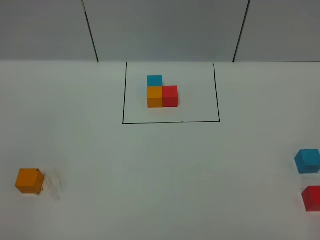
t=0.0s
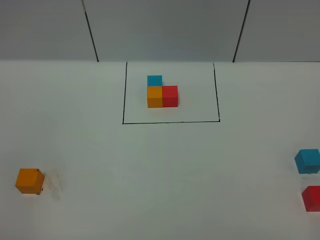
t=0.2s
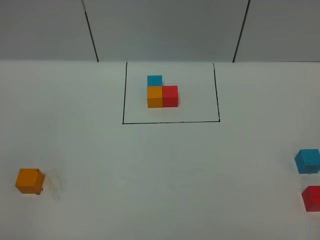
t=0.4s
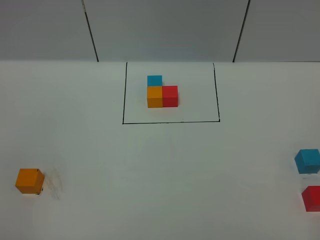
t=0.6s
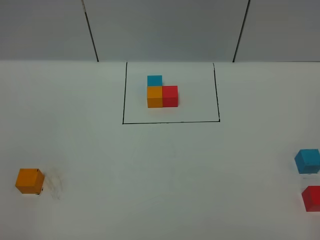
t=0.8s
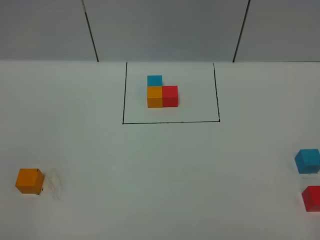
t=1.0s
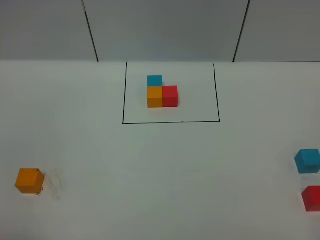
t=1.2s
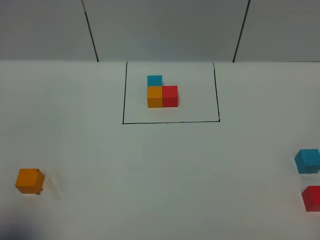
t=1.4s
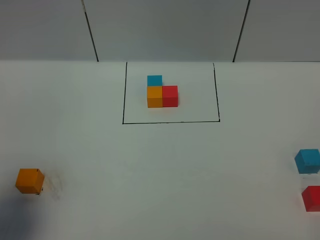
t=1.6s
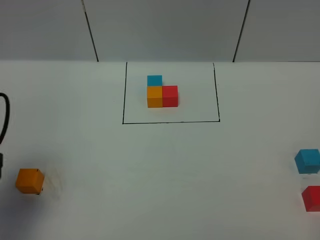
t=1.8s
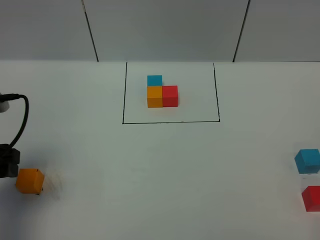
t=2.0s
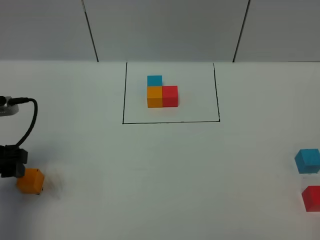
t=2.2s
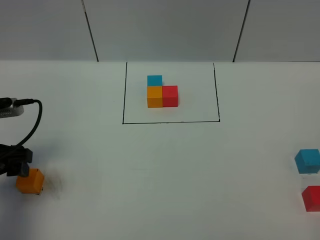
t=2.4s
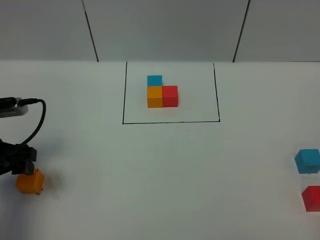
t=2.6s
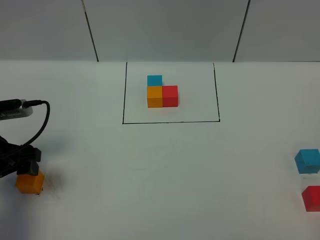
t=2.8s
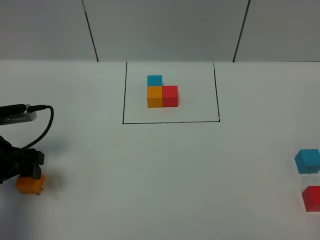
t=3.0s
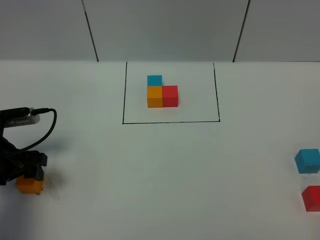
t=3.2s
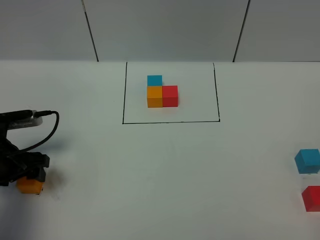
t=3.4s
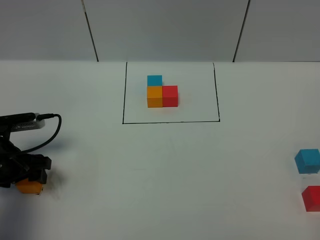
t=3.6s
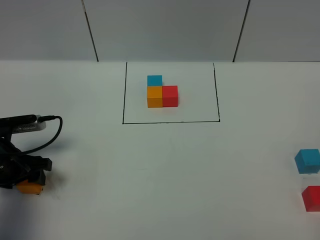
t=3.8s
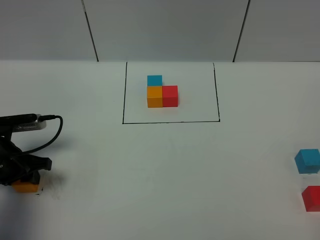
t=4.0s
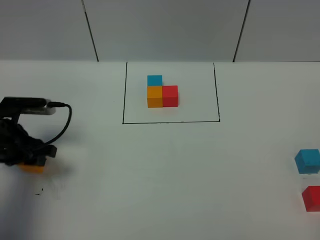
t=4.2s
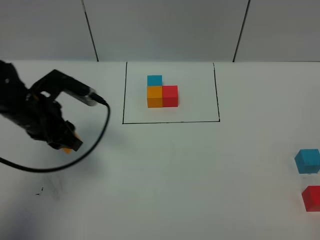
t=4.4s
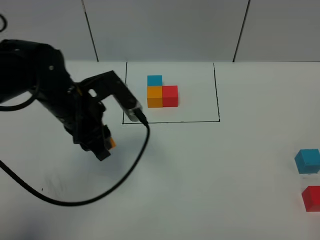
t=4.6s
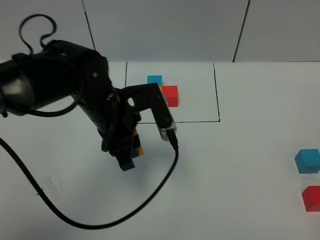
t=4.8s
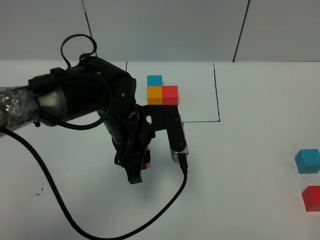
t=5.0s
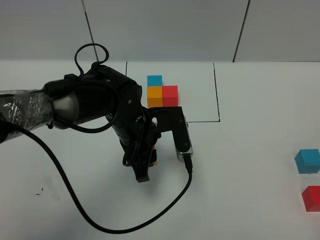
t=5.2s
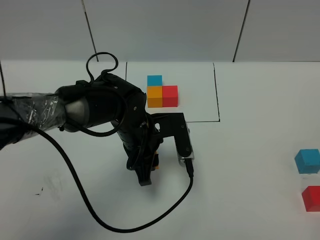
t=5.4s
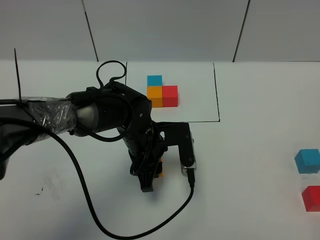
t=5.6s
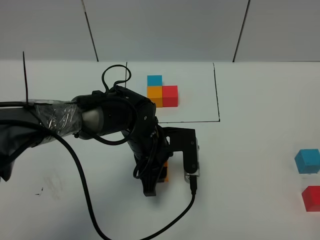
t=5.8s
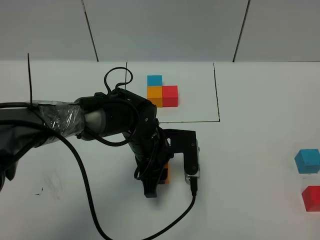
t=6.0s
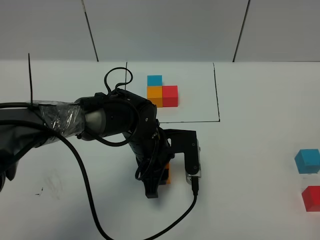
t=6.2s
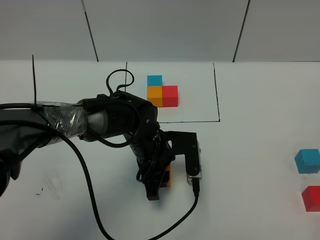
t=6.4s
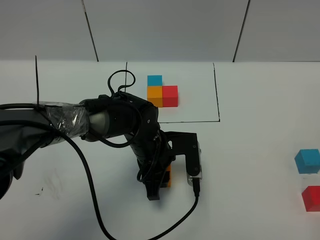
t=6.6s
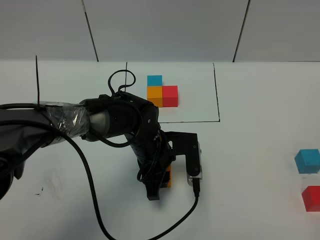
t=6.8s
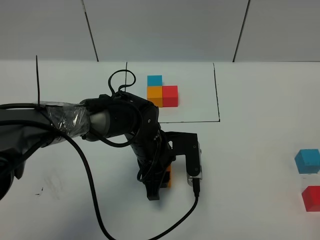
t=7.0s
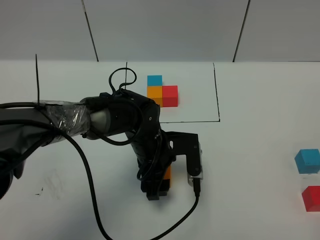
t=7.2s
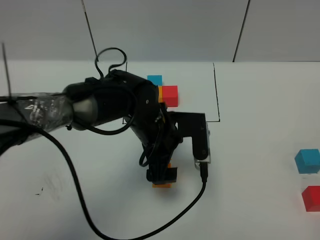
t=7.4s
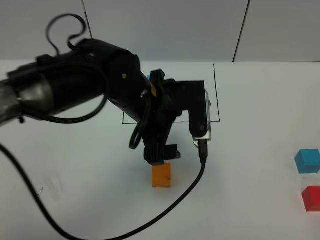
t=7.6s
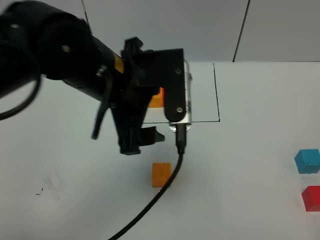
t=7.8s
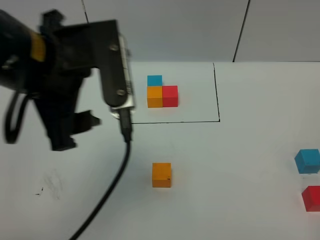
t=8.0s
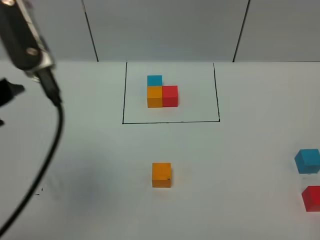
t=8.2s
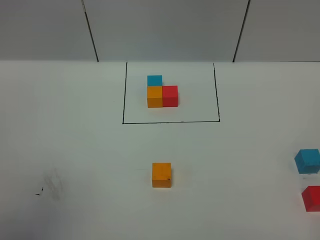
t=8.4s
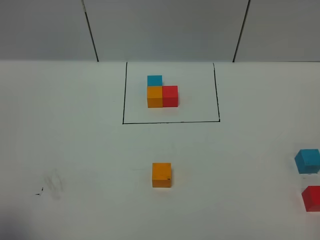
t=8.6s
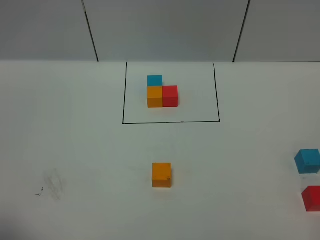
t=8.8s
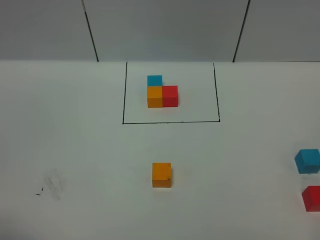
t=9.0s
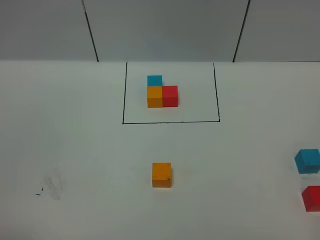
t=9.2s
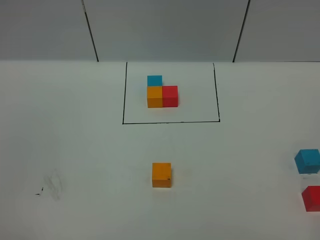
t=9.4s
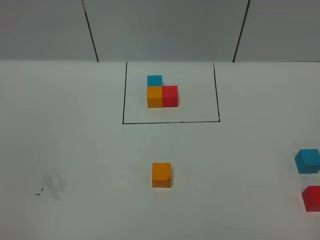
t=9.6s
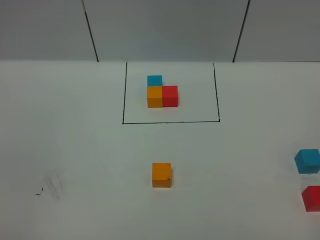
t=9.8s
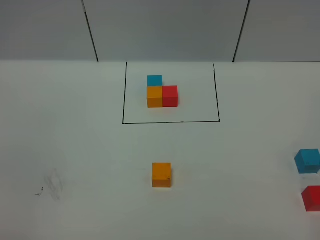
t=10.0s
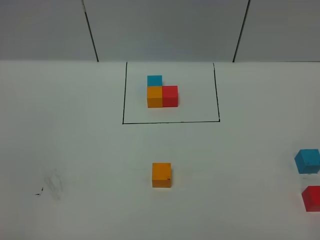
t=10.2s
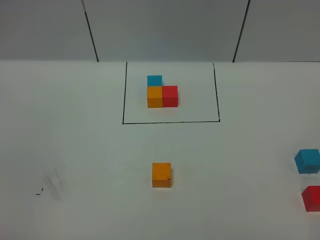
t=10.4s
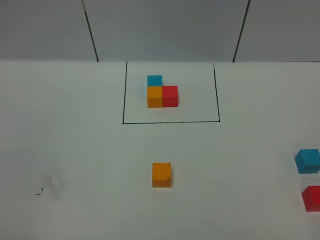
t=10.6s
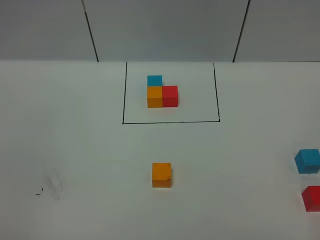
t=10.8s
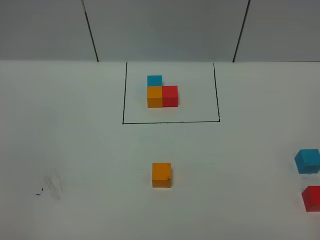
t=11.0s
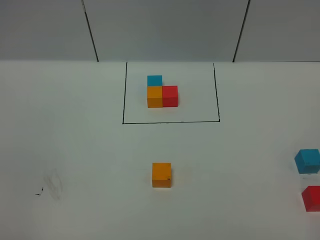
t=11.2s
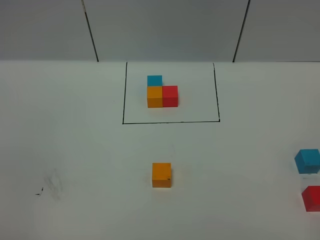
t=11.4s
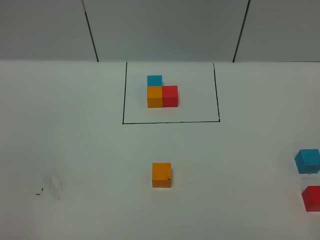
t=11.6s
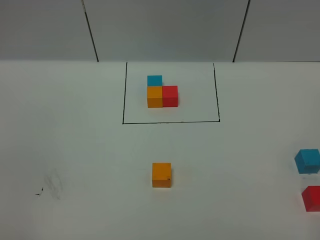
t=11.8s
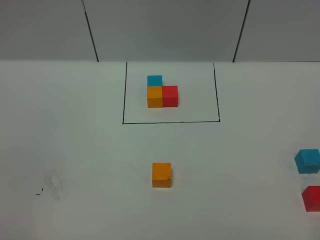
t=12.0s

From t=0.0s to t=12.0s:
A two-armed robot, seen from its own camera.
Task of the whole recording: According to the building block template in front, assemble the scattered blocks together.
Step, from t=1.8s to t=7.0s: Put the orange cube in the center of the table.
From t=0.0s to t=1.6s: The left gripper heads forward, covering roughly 15 cm.
From t=1.6s to t=3.0s: The left gripper travels downward and forward by roughly 20 cm.
From t=3.0s to t=4.4s: The left gripper moves to the right and forward, approximately 10 cm, and closes.
From t=4.4s to t=6.0s: The left gripper shifts roughly 20 cm to the right and downward.
From t=6.0s to t=7.6s: The left gripper shifts some 15 cm upward, and opens up.
From t=7.6s to t=9.0s: The left gripper moves to the left and backward, roughly 40 cm.
From t=10.4s to t=12.0s: Neither gripper changes place.

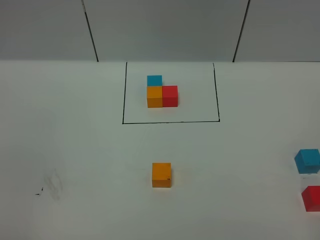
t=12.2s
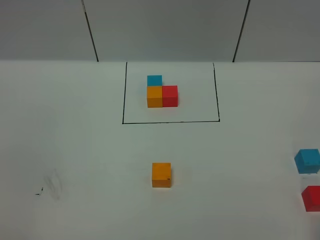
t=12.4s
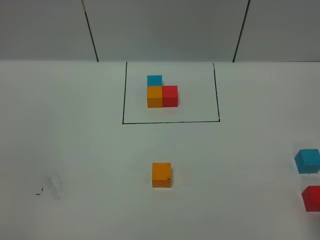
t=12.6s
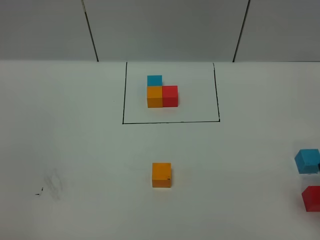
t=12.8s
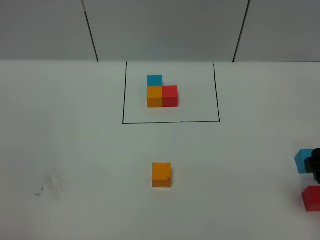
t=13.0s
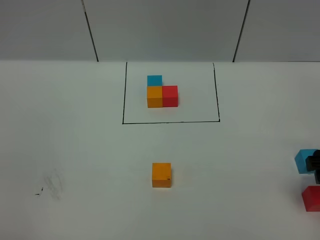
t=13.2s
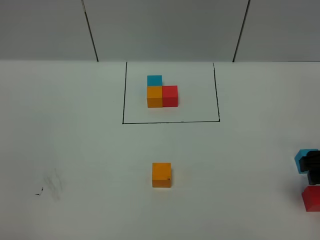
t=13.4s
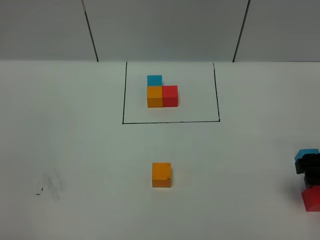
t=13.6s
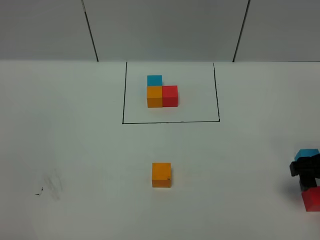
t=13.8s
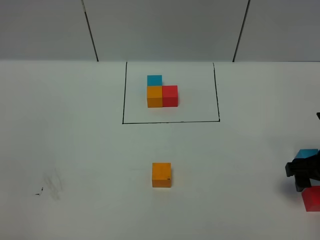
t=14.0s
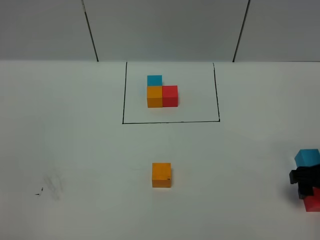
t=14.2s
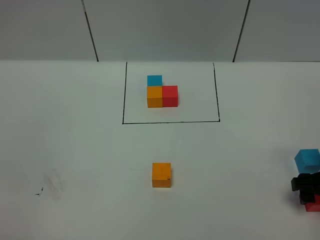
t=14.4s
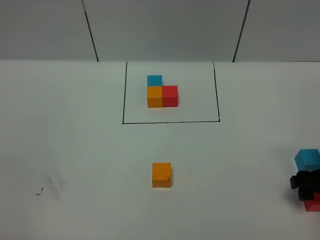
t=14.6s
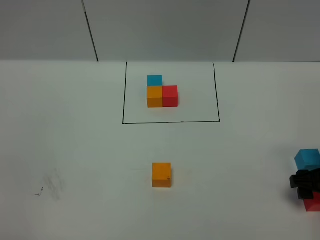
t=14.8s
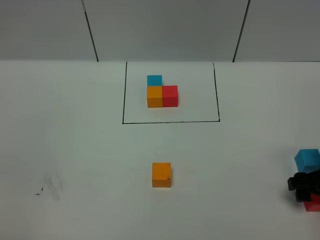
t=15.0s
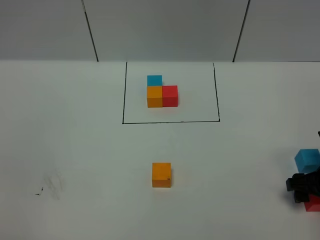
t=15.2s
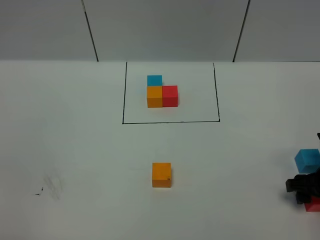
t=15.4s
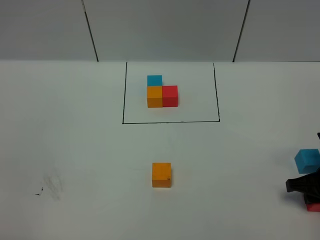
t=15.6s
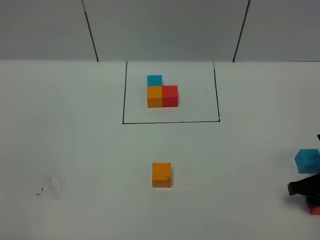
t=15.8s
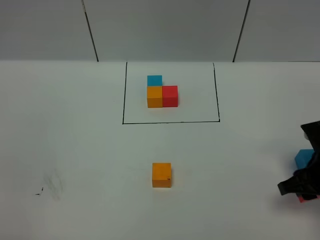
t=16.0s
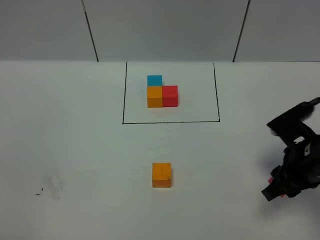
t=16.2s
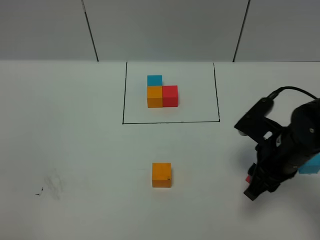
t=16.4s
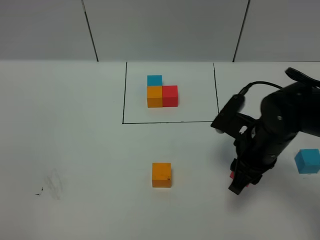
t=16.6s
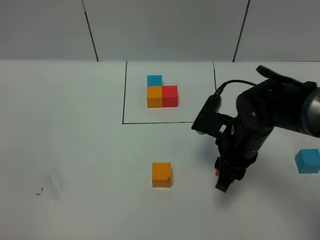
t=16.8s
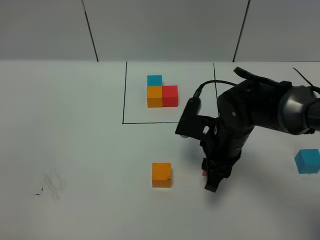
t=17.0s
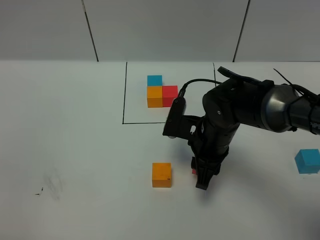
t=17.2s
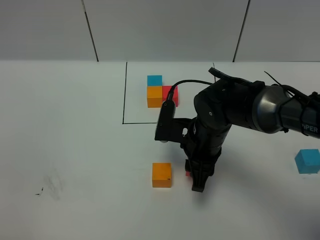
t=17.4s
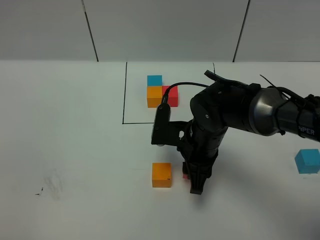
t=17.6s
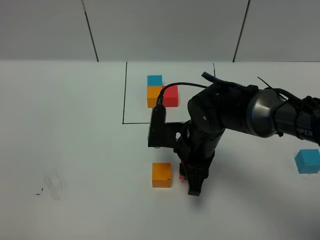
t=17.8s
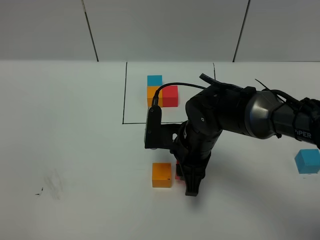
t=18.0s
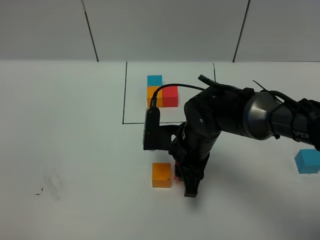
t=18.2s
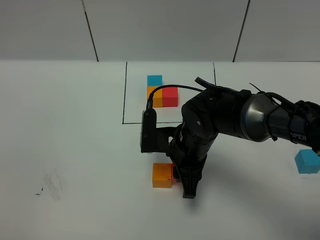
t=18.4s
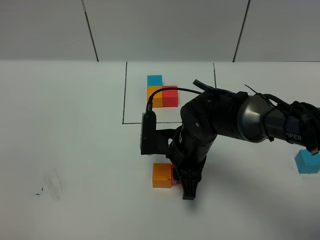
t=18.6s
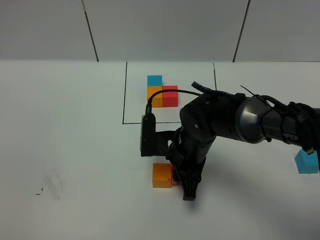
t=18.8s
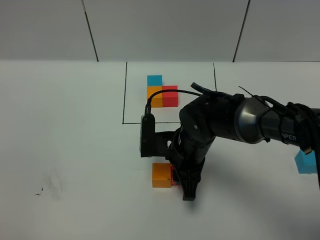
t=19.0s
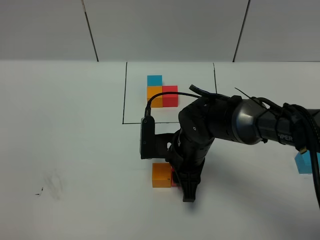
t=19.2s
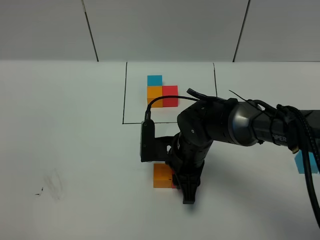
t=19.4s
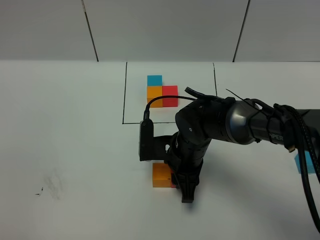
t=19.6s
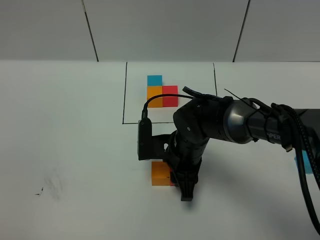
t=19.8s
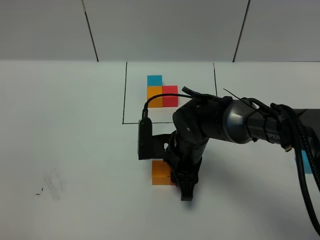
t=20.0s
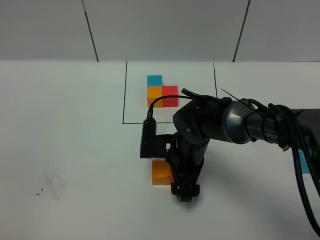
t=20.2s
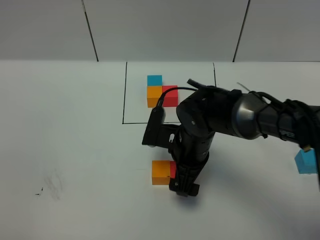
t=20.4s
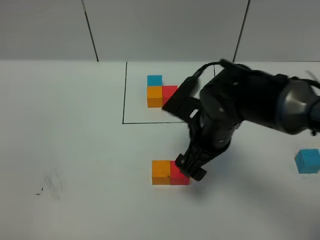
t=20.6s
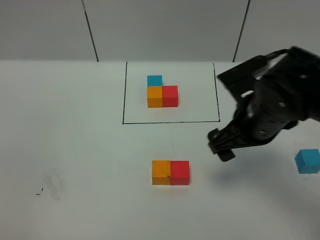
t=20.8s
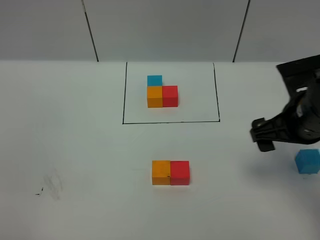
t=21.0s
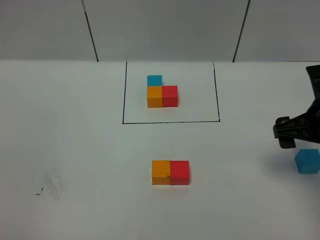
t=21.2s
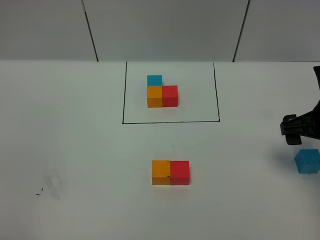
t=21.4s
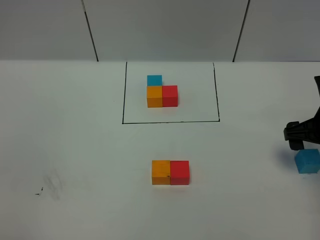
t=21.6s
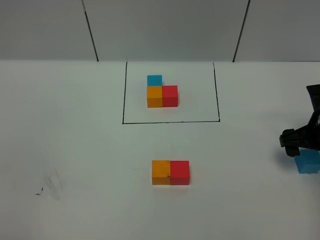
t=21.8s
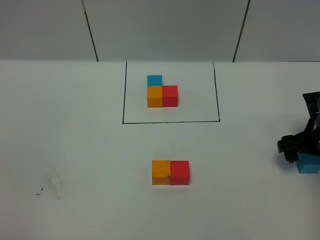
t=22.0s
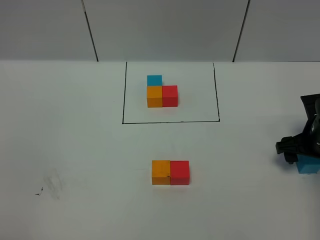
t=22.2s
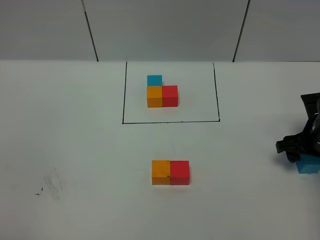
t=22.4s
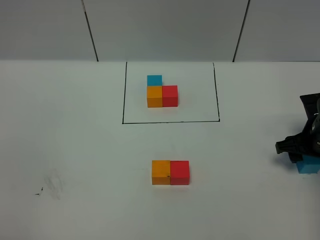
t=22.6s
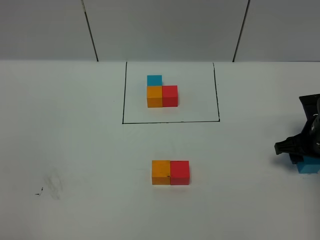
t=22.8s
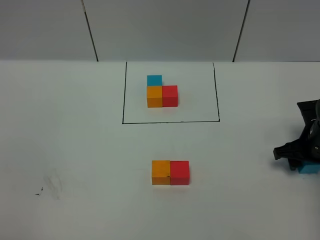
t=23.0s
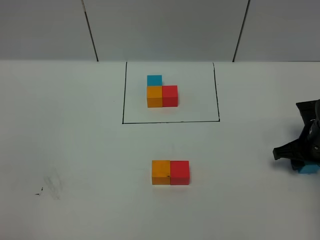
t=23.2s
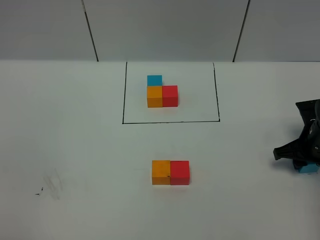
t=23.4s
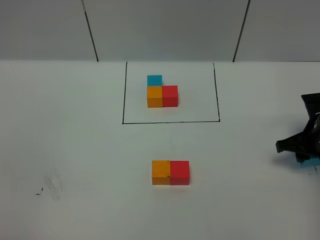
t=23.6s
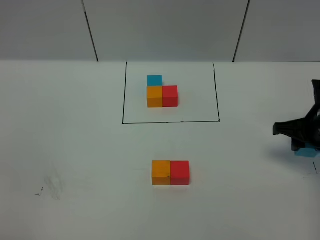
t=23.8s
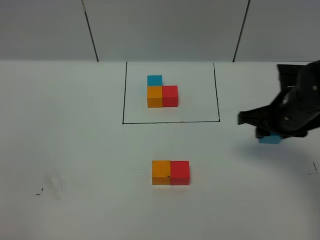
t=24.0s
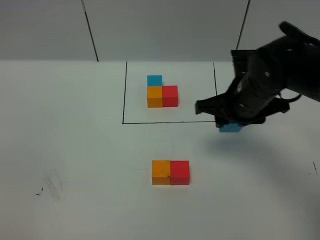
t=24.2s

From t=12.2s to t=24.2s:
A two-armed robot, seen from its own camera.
Task of the whole recording: According to the building block template in front, assemble the scattered blocks together.
Step, from t=12.2s to t=20.0s: Put the red cube on the right of the orange cube.
From t=12.2s to t=13.8s: The right gripper goes approximately 25 cm forward and downward.
From t=13.8s to t=15.2s: The right gripper shifts roughly 5 cm downward.
From t=15.2s to t=16.6s: The right gripper heads to the left, covering about 15 cm, and closes up.
From t=16.6s to t=18.2s: The right gripper moves to the left, approximately 10 cm.
From t=18.2s to t=19.8s: The grippers move only a little.
From t=19.8s to t=21.2s: The right gripper travels to the right and upward by approximately 25 cm, and opens its fingers.
From t=21.2s to t=22.6s: The right gripper shifts approximately 10 cm downward, and closes up.
From t=22.6s to t=24.2s: The right gripper moves to the left and upward, roughly 20 cm, and closes.
